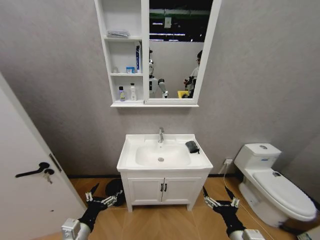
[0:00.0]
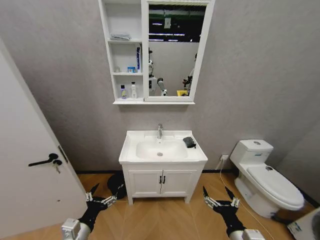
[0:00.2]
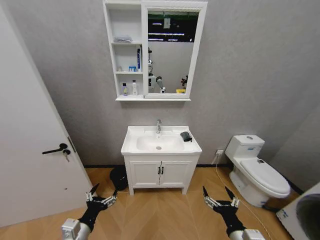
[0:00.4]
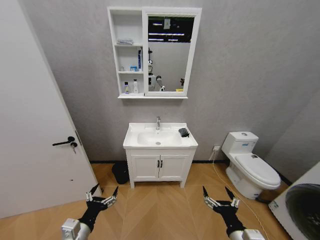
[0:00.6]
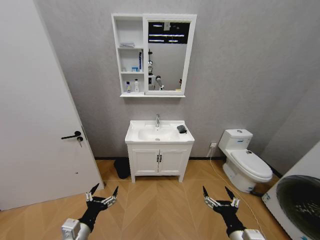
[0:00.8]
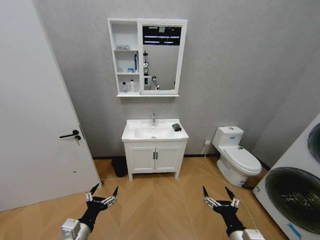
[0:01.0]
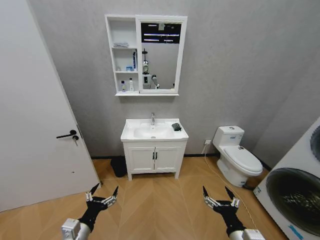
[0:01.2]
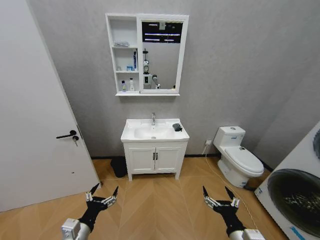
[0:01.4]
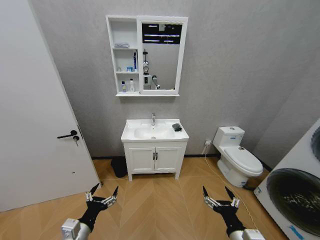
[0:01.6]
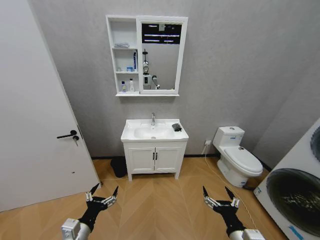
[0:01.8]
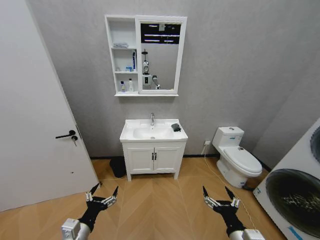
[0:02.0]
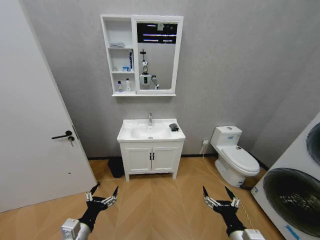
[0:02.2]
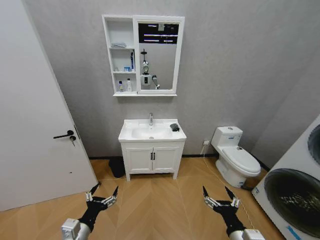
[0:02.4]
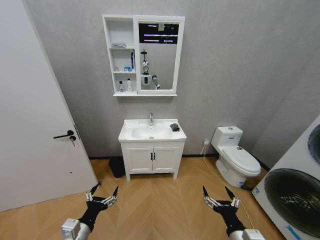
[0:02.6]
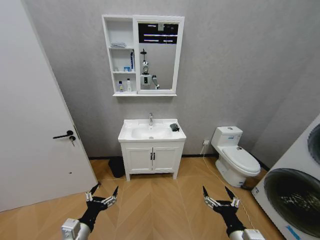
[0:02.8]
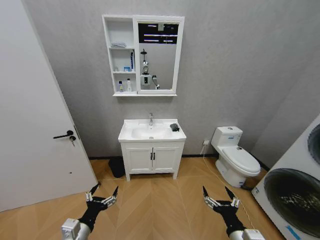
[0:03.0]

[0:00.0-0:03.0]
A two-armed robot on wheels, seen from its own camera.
Task of the whole recording: Move facial cleanser and shampoo from washbasin to cabinet, then wipe washbasin with towel.
0:01.6 to 0:03.0: Neither gripper changes place.
